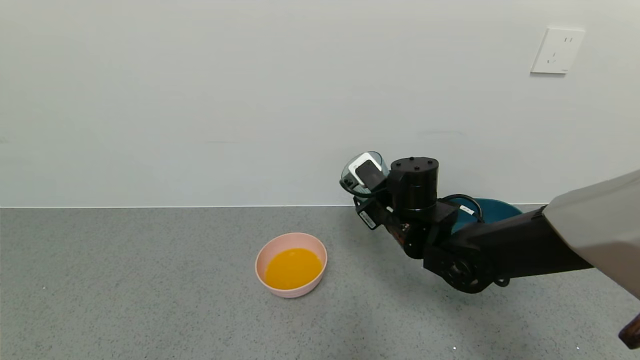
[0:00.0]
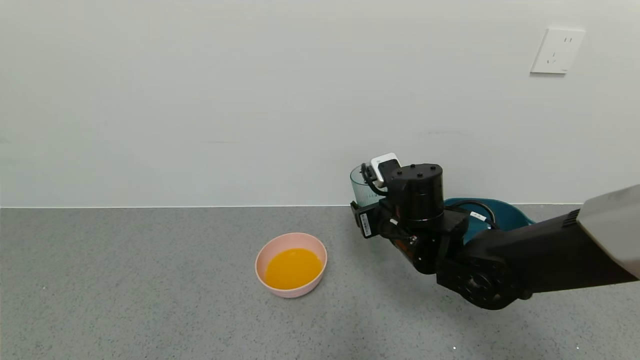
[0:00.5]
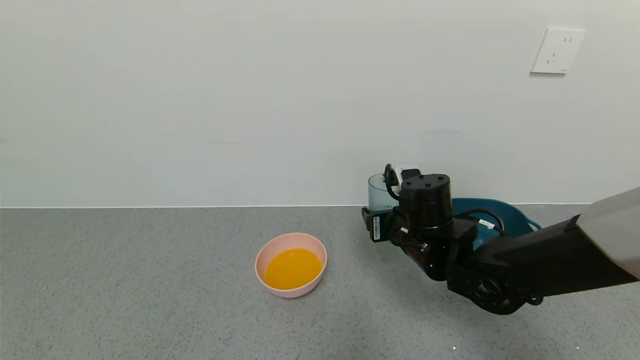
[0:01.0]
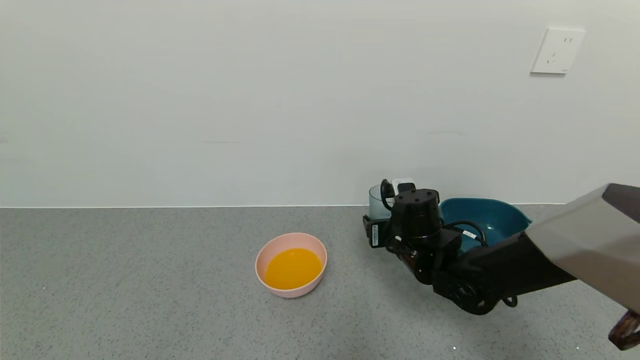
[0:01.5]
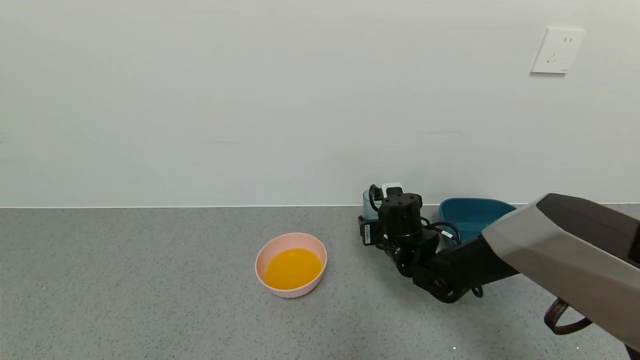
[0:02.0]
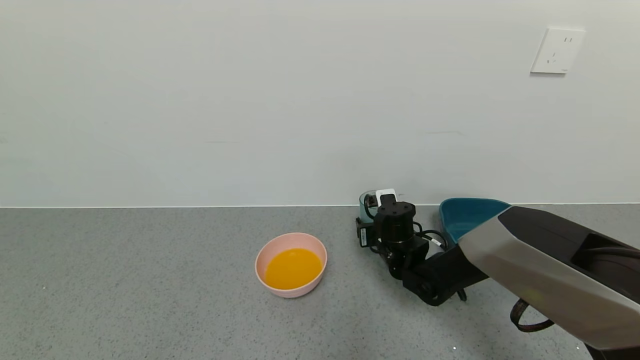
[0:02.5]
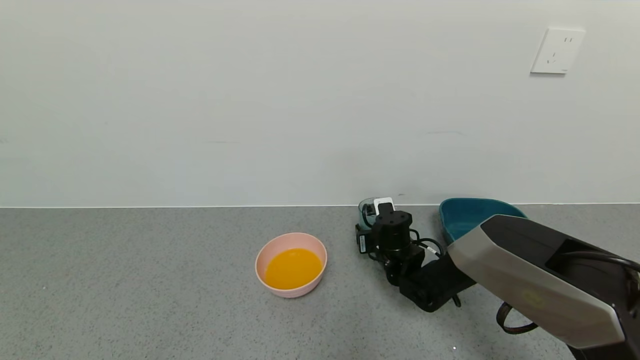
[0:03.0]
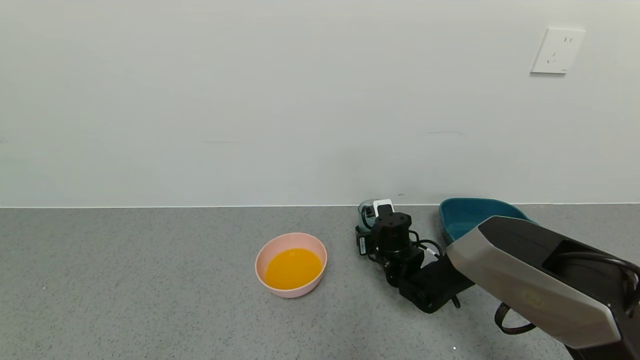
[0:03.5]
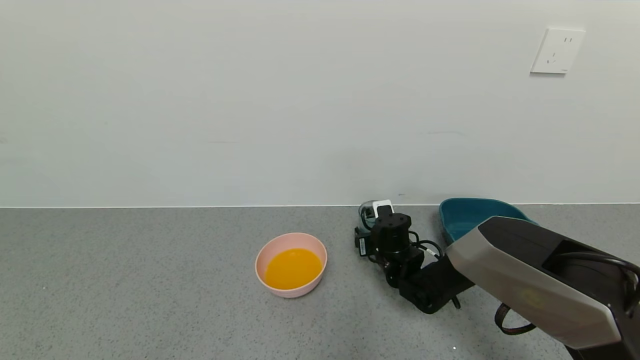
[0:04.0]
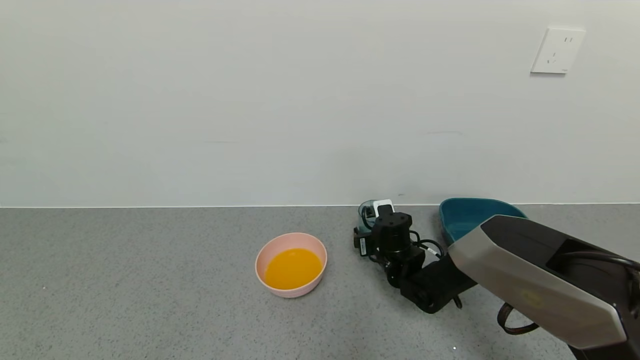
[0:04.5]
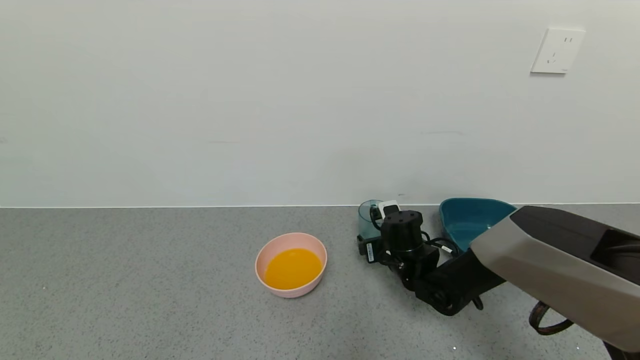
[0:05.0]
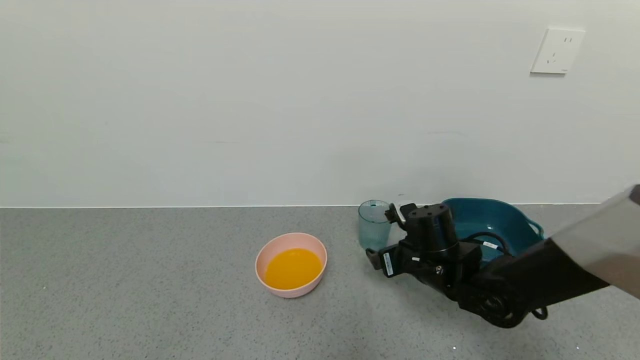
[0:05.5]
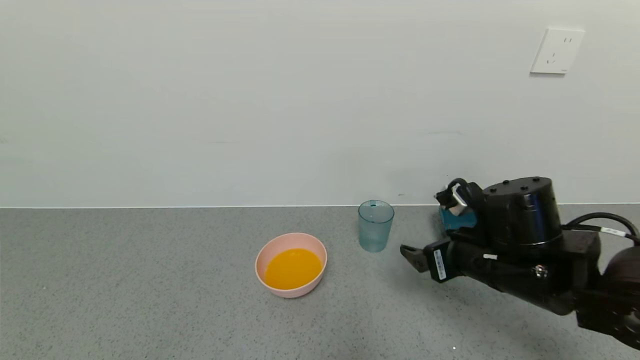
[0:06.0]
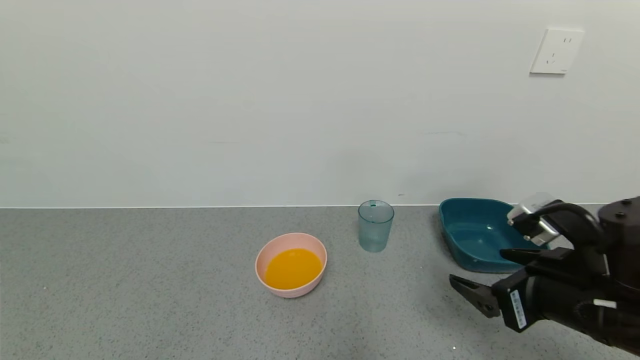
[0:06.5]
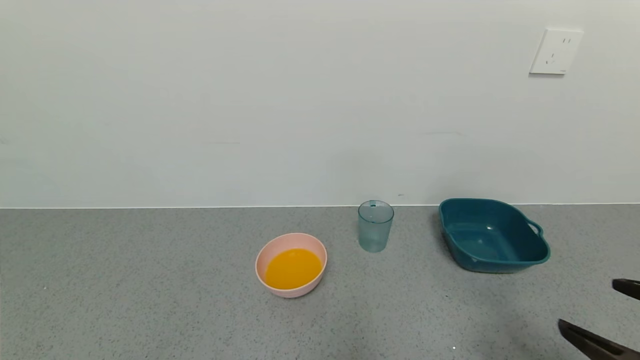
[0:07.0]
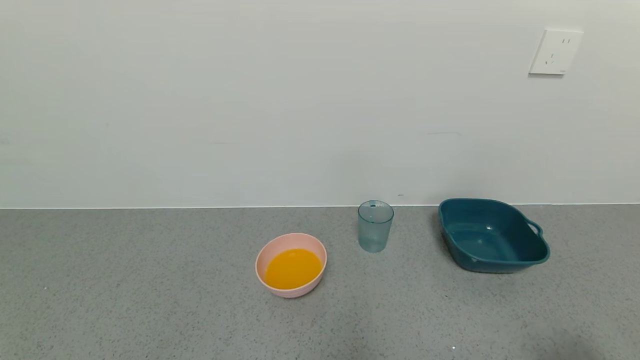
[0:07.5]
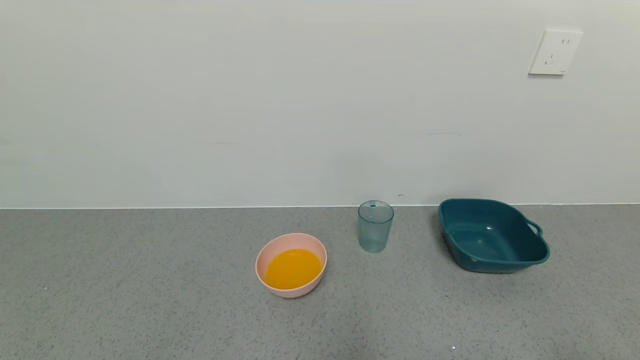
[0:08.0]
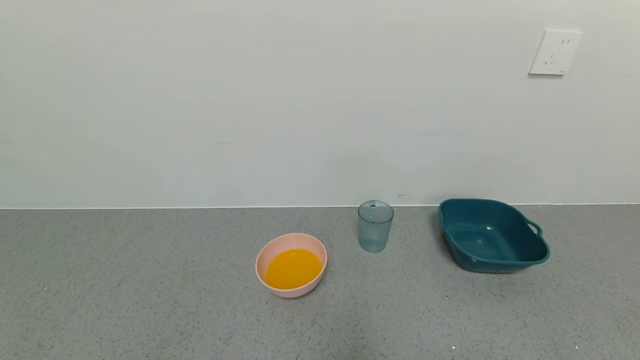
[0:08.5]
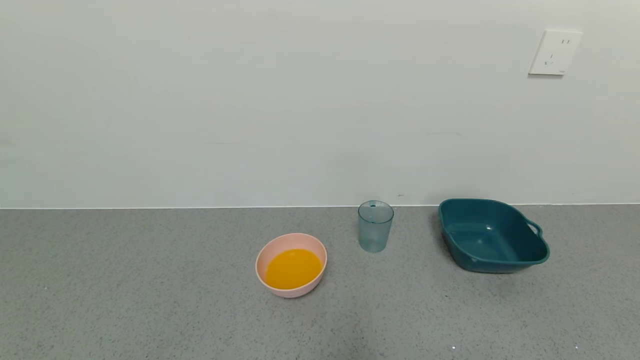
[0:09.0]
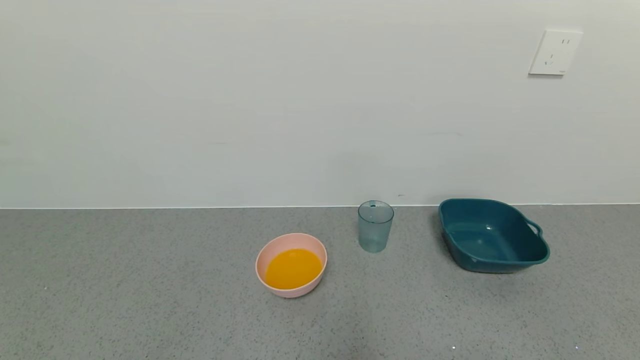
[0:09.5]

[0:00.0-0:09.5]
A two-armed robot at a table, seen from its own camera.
Task of the whole recording: use a gripper to pick up the cup and pour the liquid into a bowl or tray.
Step, 0:00.0 to 0:04.0: Place blue cup with orange juice on the table with right gripper.
0:00.0 to 0:02.0: The right gripper moves downward, approximately 10 cm.
0:02.0 to 0:04.0: The right gripper heads downward, covering about 5 cm, and opens.
0:04.0 to 0:05.5: The right gripper is displaced backward and upward by some 10 cm, and opens.
0:05.5 to 0:07.5: The right gripper heads backward, to the right and upward, covering some 40 cm.
